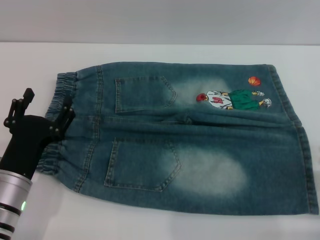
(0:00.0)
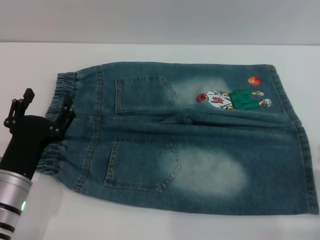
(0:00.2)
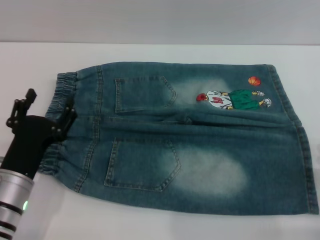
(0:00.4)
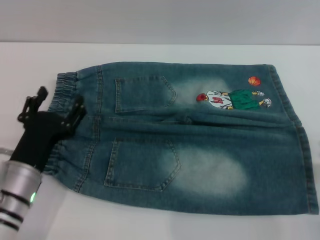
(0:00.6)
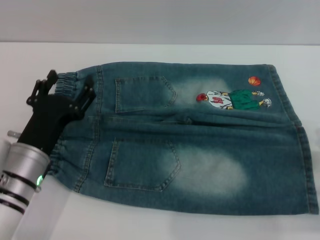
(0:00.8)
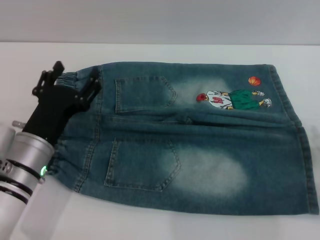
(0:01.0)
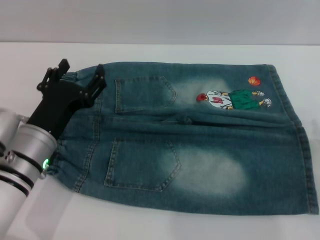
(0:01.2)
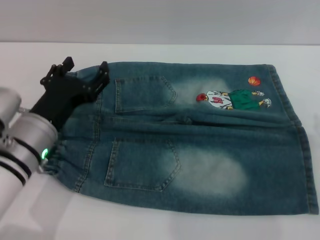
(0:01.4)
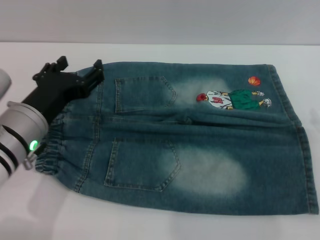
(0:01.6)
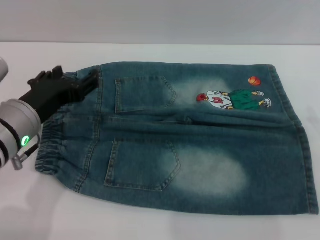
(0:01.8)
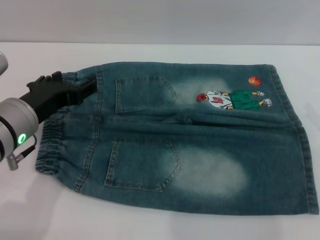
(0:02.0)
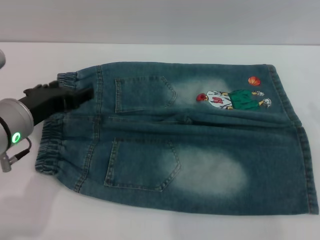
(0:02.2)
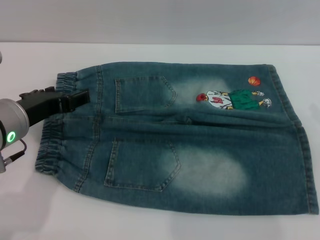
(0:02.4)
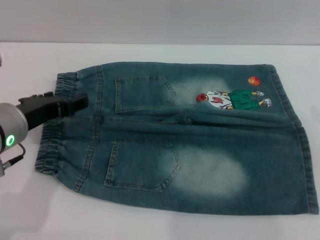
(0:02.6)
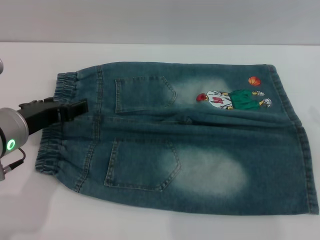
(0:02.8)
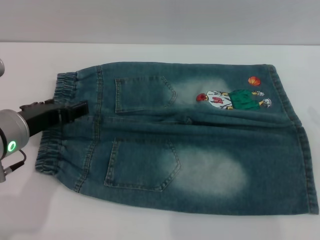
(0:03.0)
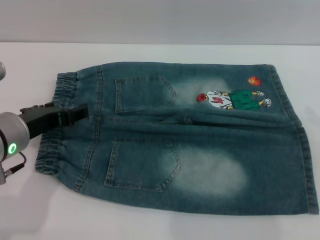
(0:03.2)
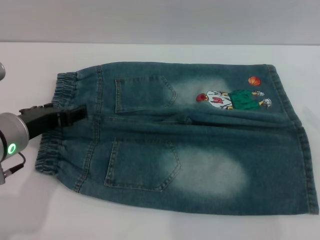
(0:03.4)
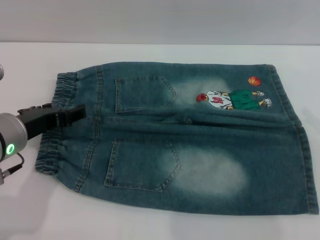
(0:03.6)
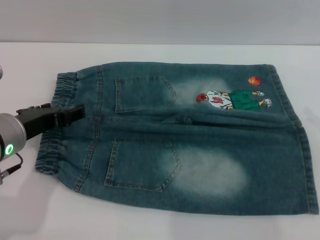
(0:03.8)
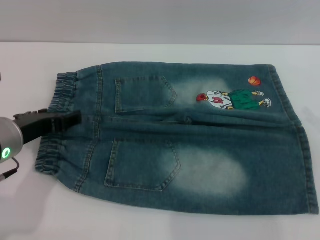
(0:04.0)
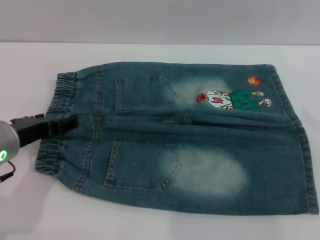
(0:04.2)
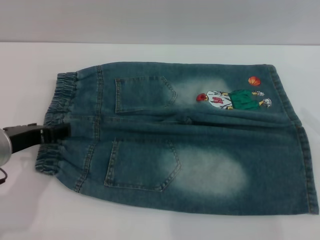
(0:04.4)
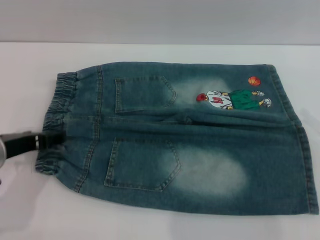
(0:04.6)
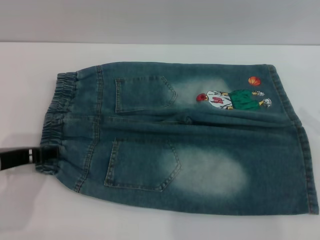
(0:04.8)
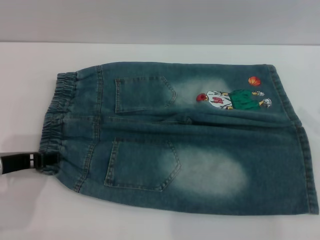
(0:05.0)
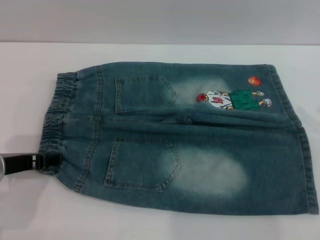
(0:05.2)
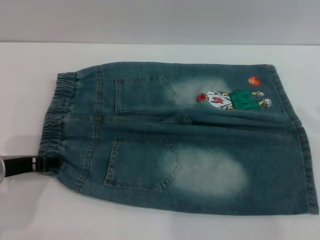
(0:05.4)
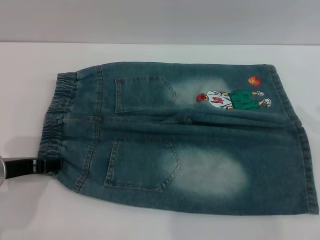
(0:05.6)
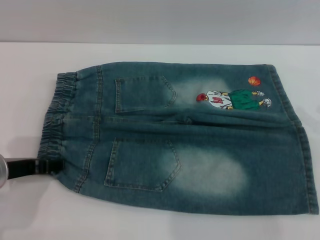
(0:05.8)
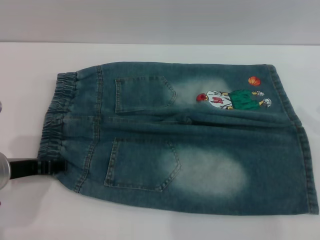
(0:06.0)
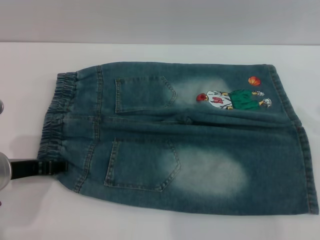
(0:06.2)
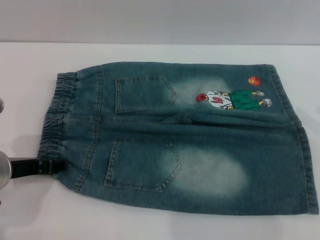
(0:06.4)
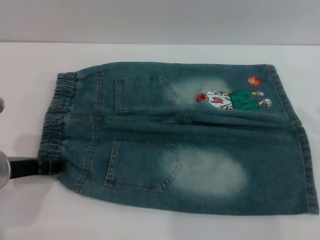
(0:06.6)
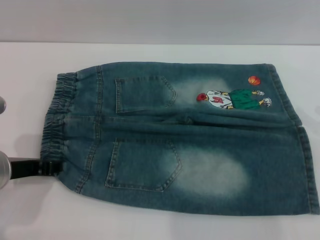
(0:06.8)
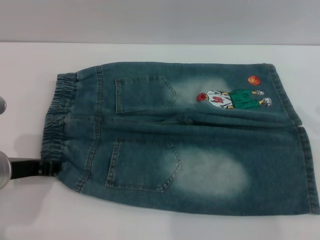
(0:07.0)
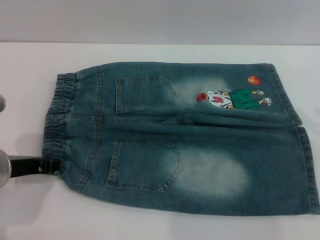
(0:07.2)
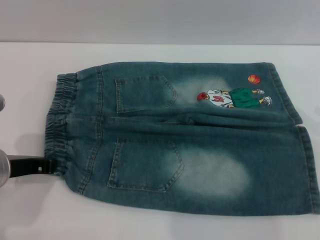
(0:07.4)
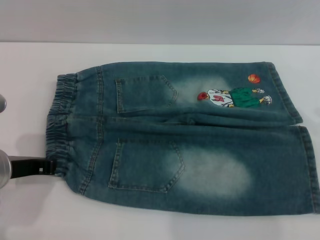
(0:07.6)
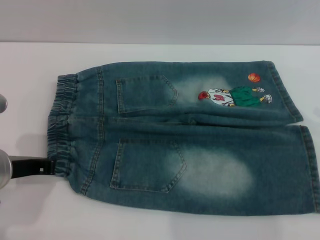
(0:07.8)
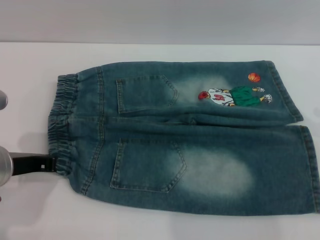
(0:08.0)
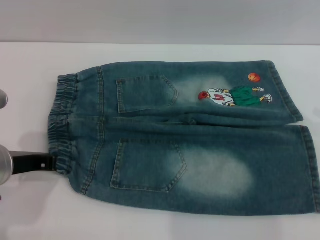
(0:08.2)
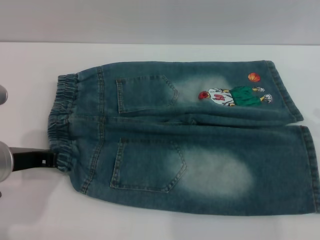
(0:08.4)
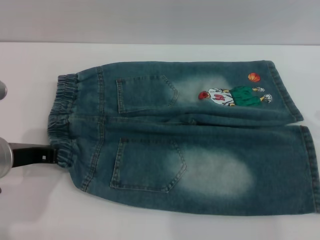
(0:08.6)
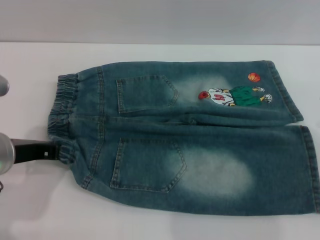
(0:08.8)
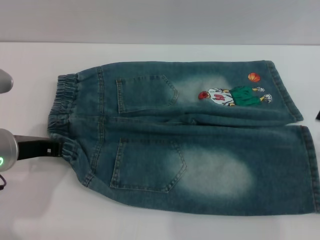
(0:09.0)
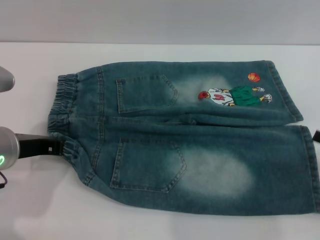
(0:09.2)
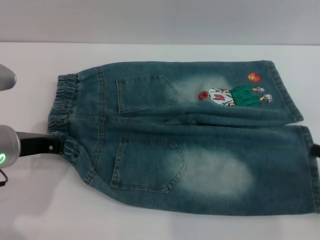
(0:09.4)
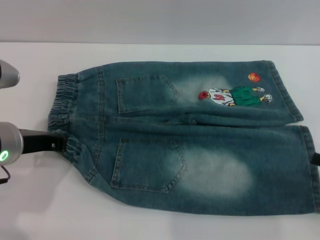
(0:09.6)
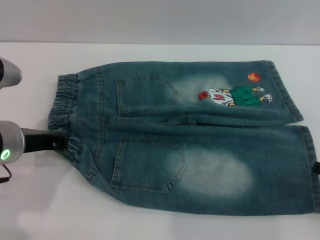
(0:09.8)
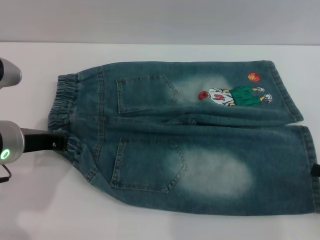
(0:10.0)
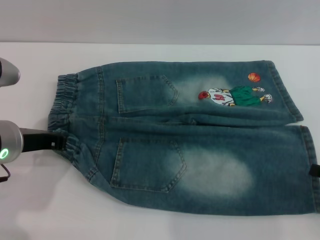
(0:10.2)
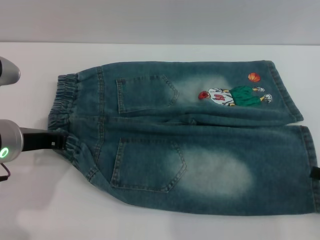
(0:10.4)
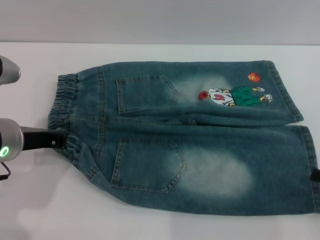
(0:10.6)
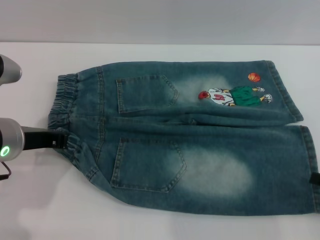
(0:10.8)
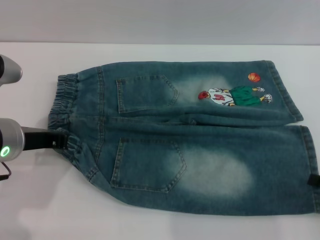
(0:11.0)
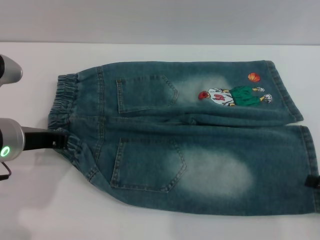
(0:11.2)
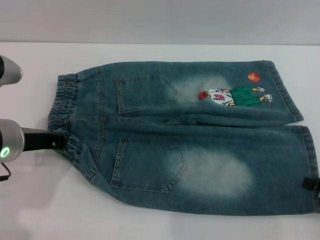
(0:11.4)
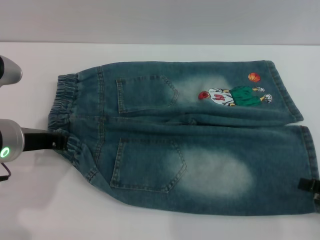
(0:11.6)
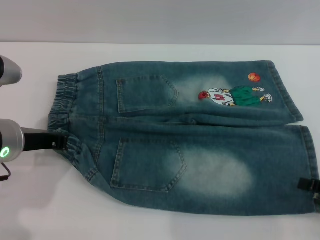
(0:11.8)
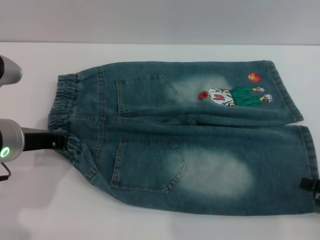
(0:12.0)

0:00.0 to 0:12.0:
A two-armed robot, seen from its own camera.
0:00.0 to 0:01.6: The left gripper is displaced upward and forward by approximately 10 cm.
0:03.0 to 0:04.4: The grippers make only small movements.
0:04.4 to 0:06.0: There are only small adjustments of the grippers.
0:06.0 to 0:07.6: The left gripper closes its fingers.
0:07.6 to 0:09.0: The grippers move only a little.
0:09.0 to 0:10.4: The grippers stay close to where they were, moving slightly.

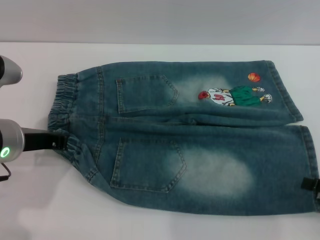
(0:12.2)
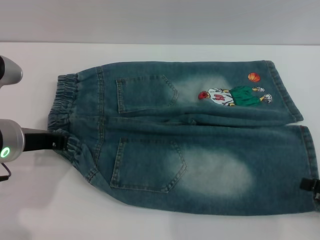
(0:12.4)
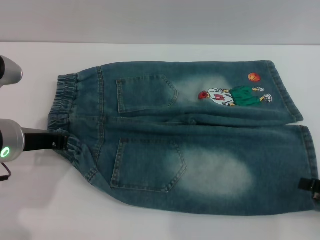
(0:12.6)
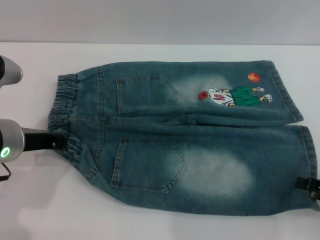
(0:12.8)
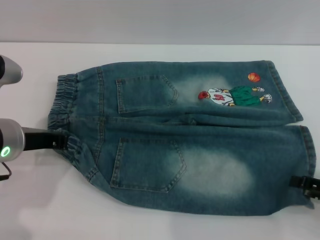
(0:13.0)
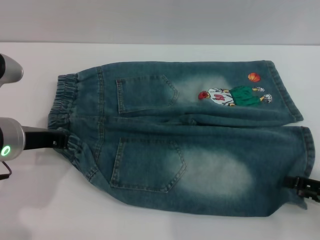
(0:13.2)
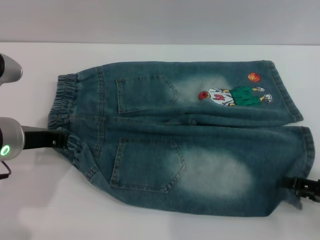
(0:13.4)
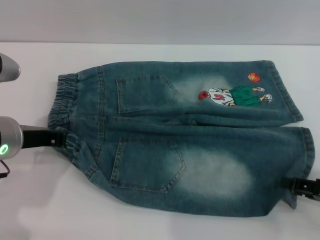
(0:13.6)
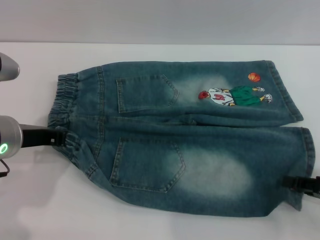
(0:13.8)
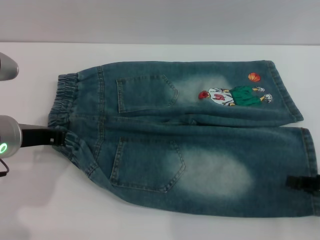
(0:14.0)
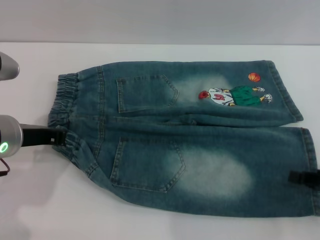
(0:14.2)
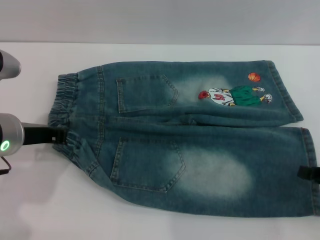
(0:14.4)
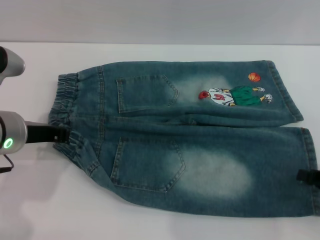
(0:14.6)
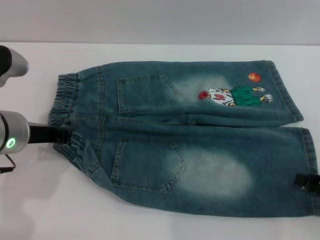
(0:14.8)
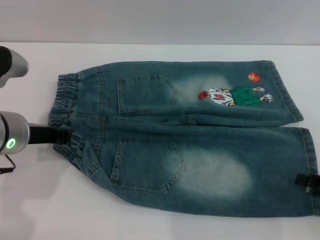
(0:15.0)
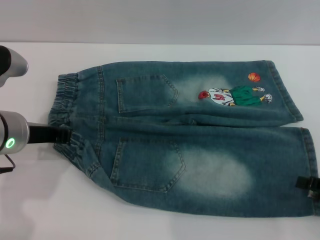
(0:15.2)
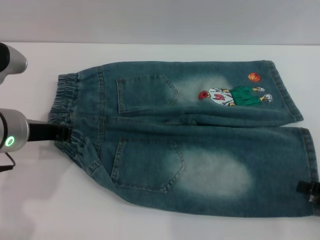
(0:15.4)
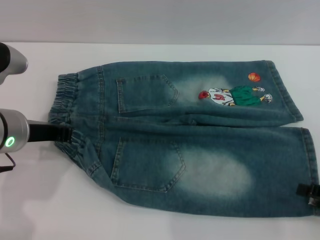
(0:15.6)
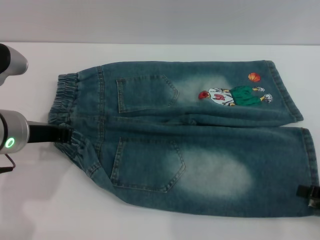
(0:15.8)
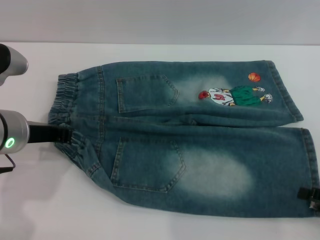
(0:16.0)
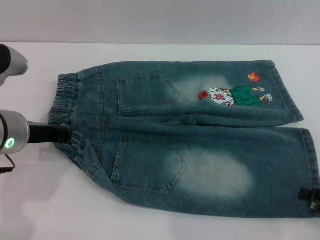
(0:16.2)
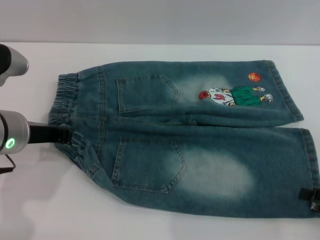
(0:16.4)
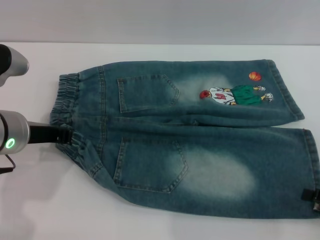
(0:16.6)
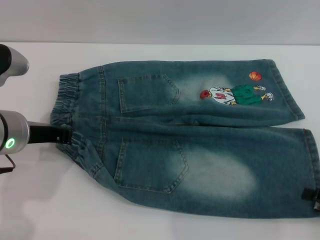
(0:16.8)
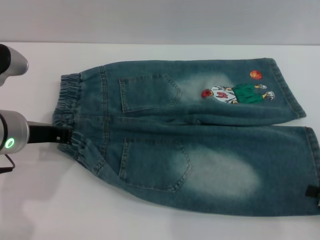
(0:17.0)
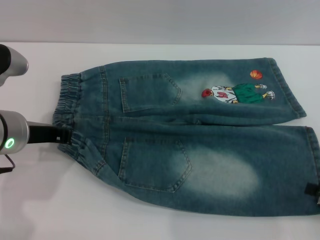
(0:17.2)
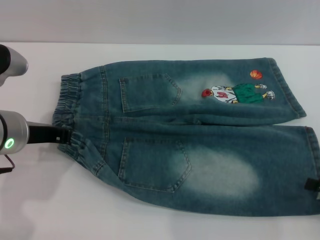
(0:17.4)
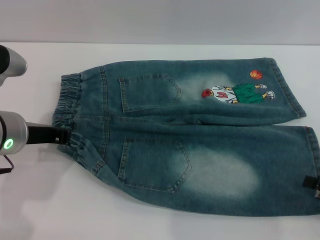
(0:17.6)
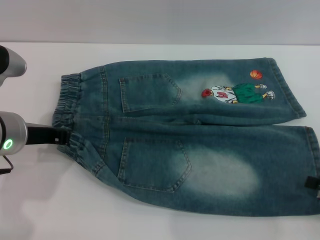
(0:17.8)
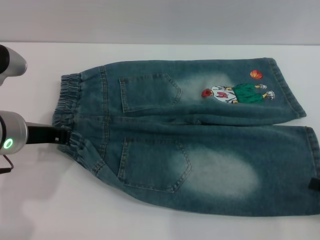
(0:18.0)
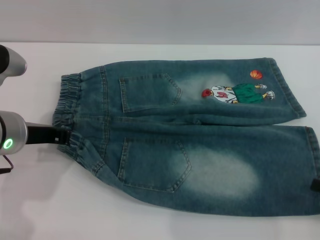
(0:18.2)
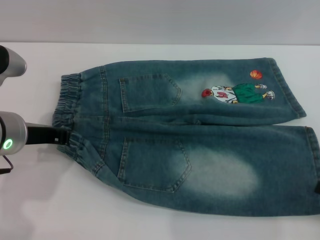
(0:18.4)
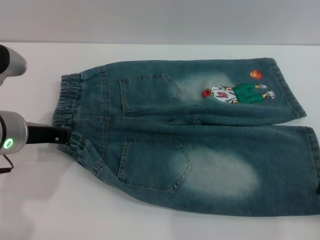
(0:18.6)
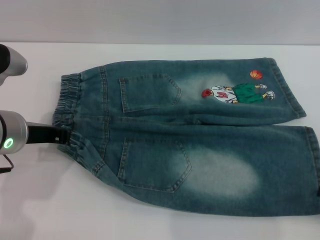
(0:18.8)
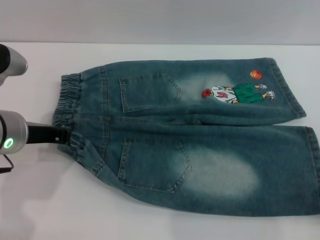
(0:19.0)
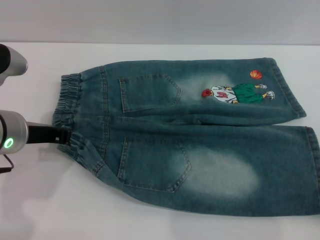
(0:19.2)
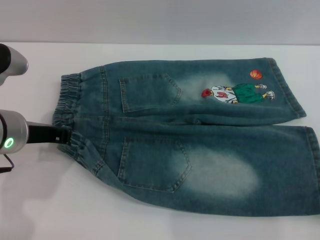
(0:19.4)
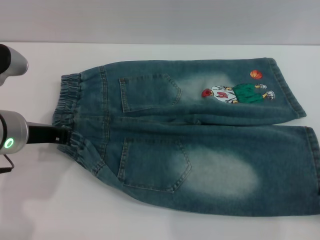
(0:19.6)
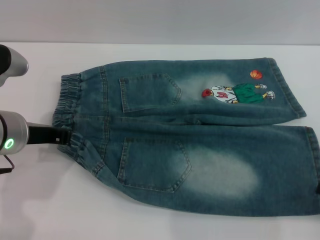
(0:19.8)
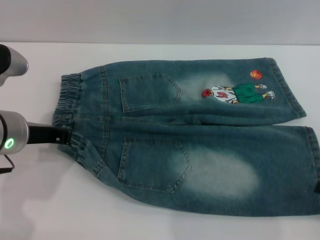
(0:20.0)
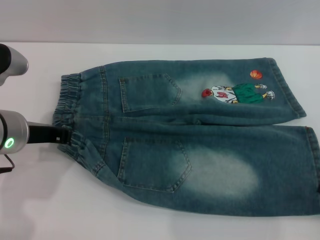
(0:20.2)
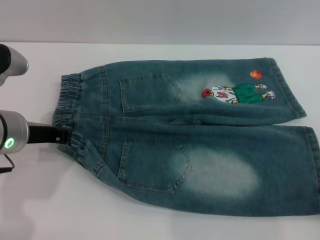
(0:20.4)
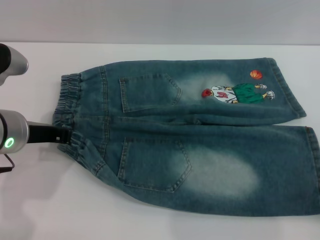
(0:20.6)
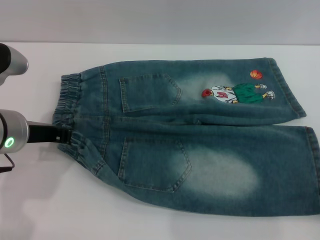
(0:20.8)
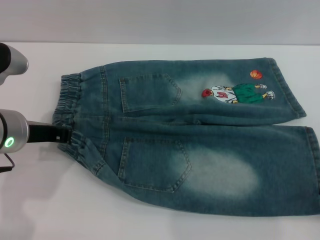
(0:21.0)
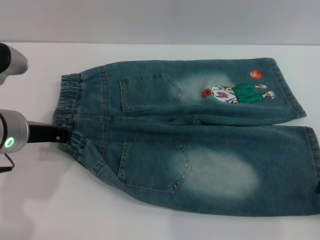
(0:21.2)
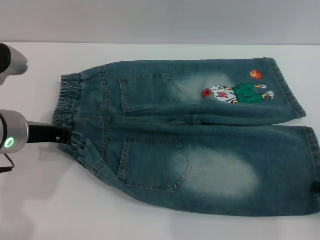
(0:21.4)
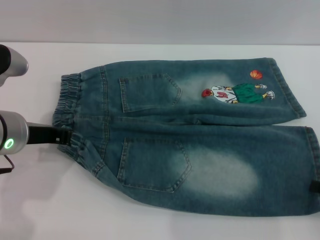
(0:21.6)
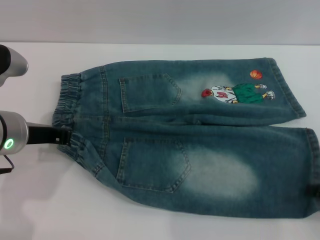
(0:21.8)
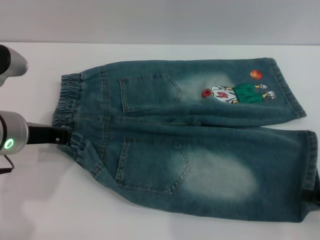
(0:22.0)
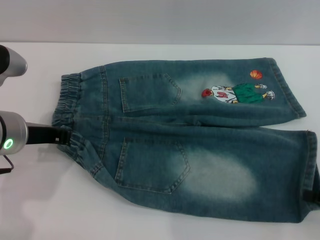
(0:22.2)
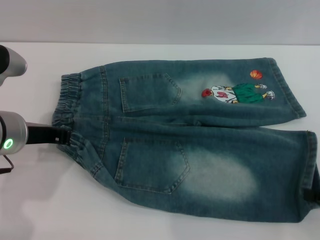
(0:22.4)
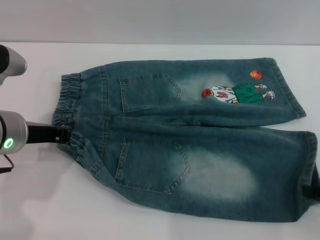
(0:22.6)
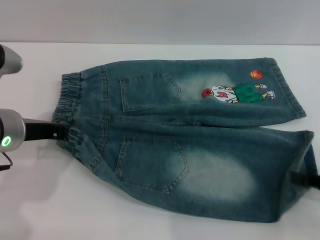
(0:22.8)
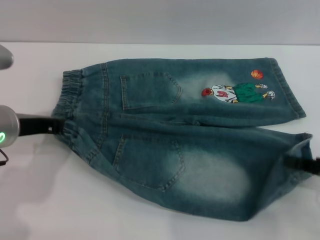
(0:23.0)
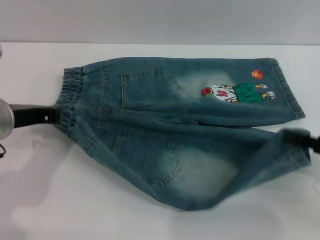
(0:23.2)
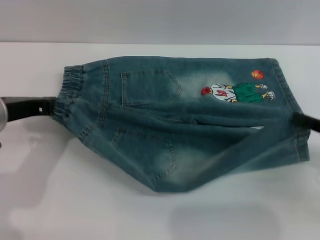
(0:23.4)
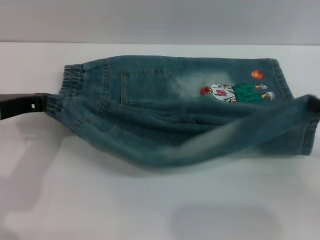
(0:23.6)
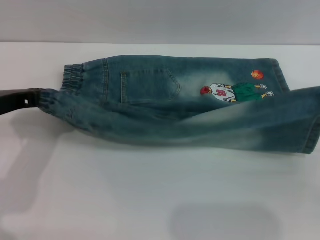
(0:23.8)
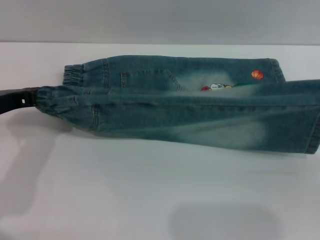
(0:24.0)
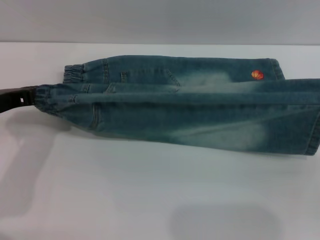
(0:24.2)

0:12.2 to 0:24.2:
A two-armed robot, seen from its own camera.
0:12.2 to 0:13.8: The right gripper closes up.
0:13.8 to 0:15.2: The right gripper closes, then opens again.
0:15.2 to 0:18.2: There are only small adjustments of the grippers.
0:18.2 to 0:21.2: The two grippers keep their place.
0:21.2 to 0:22.6: The right gripper closes its fingers.
0:22.6 to 0:24.2: The right gripper ends up roughly 5 cm from where it was.
